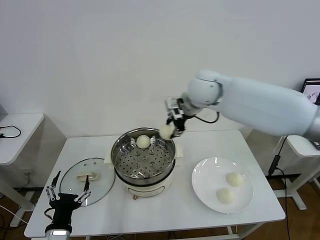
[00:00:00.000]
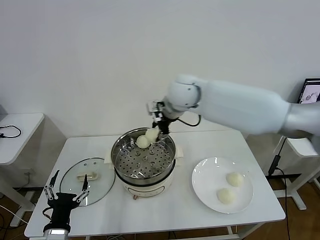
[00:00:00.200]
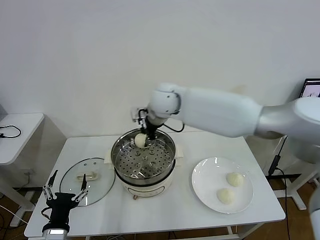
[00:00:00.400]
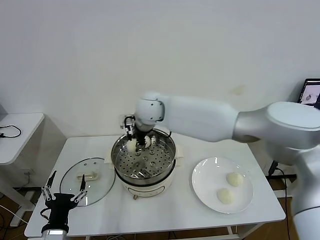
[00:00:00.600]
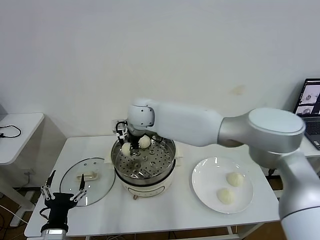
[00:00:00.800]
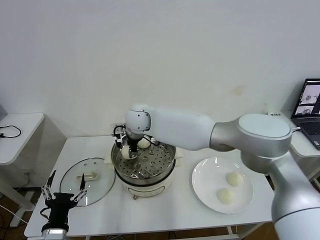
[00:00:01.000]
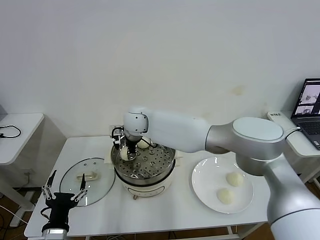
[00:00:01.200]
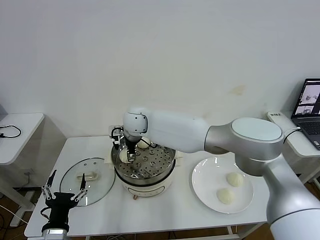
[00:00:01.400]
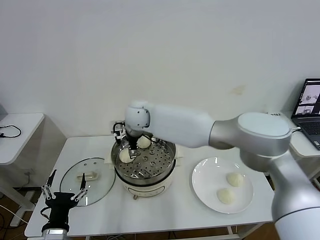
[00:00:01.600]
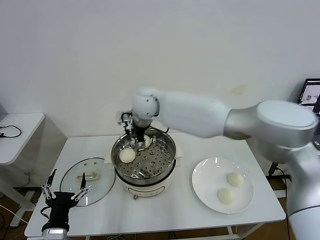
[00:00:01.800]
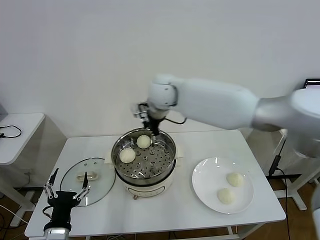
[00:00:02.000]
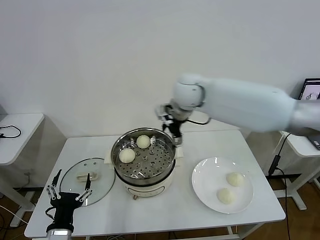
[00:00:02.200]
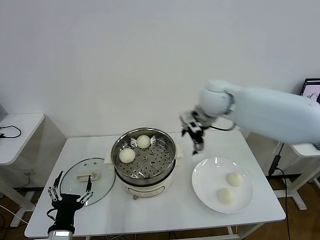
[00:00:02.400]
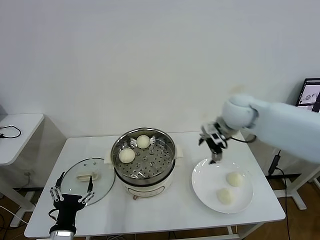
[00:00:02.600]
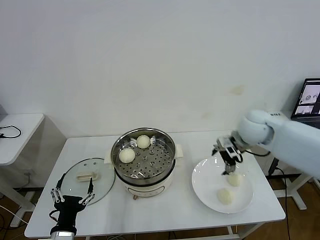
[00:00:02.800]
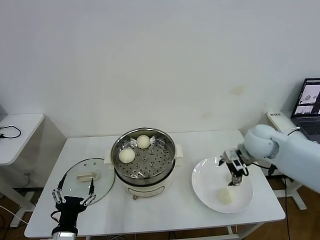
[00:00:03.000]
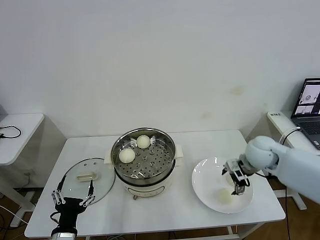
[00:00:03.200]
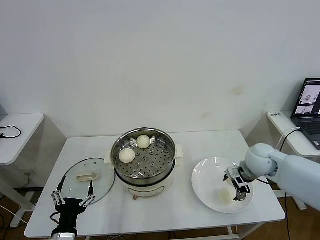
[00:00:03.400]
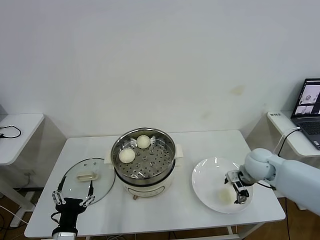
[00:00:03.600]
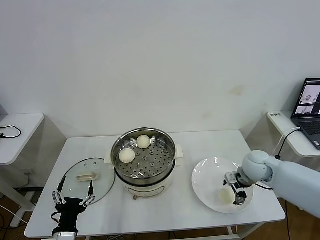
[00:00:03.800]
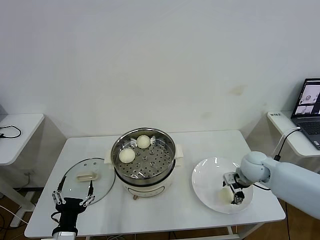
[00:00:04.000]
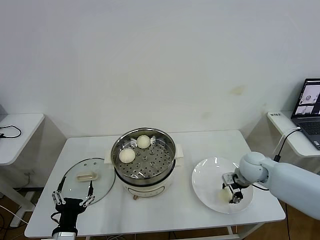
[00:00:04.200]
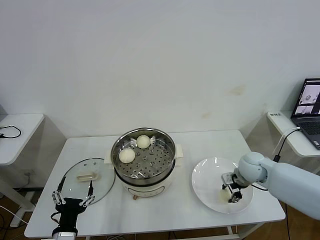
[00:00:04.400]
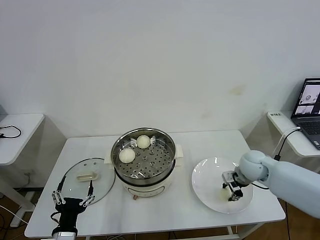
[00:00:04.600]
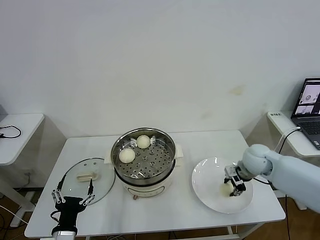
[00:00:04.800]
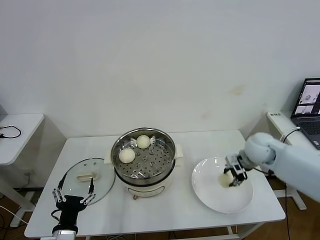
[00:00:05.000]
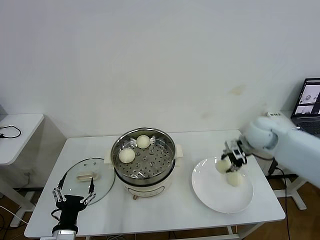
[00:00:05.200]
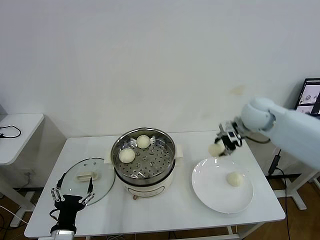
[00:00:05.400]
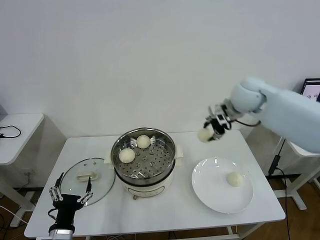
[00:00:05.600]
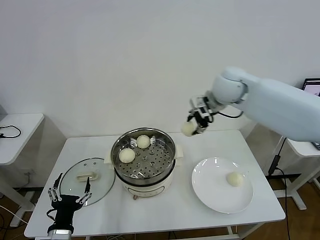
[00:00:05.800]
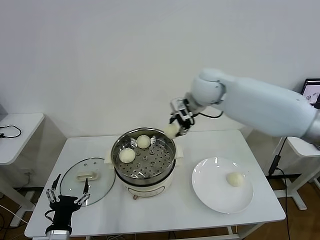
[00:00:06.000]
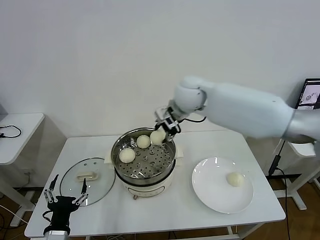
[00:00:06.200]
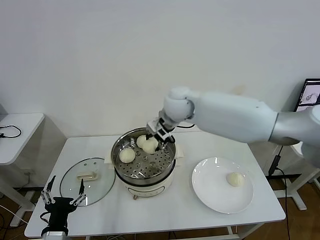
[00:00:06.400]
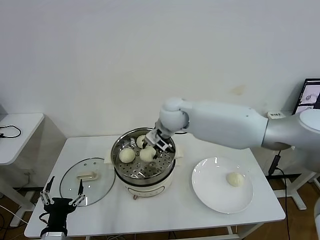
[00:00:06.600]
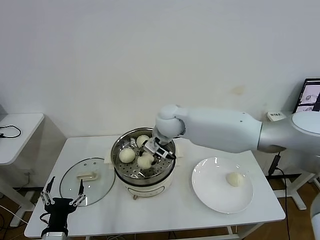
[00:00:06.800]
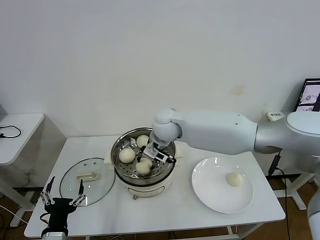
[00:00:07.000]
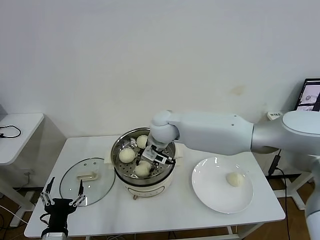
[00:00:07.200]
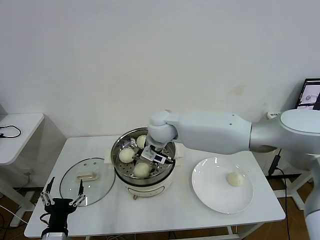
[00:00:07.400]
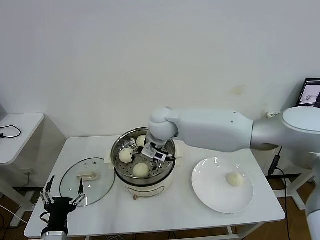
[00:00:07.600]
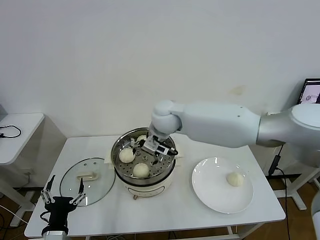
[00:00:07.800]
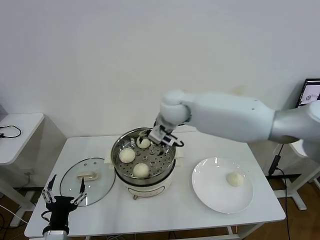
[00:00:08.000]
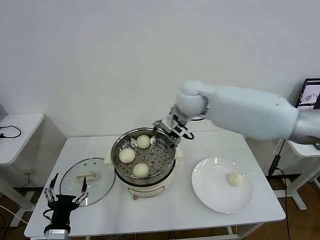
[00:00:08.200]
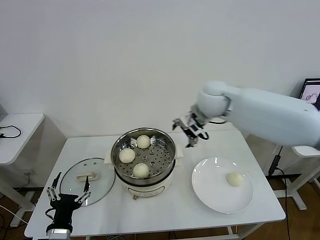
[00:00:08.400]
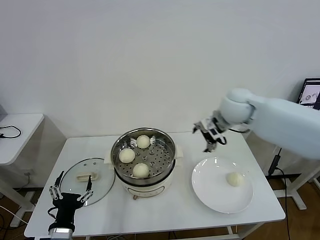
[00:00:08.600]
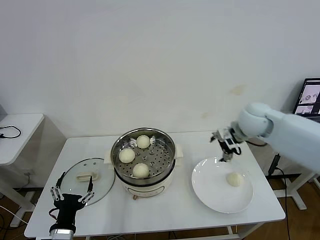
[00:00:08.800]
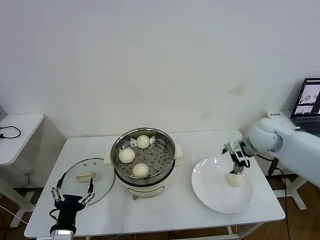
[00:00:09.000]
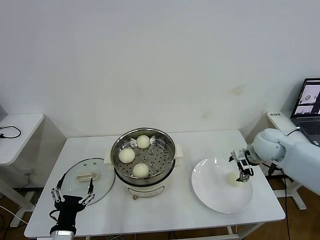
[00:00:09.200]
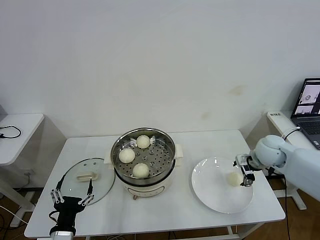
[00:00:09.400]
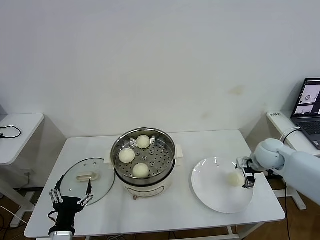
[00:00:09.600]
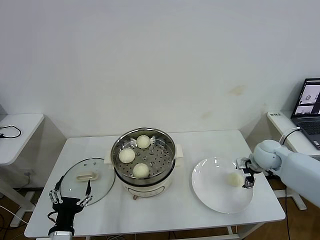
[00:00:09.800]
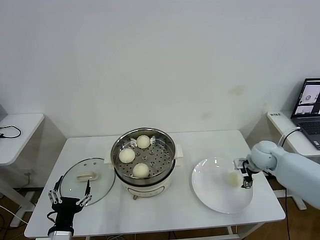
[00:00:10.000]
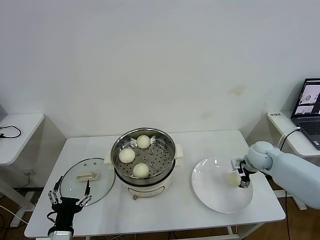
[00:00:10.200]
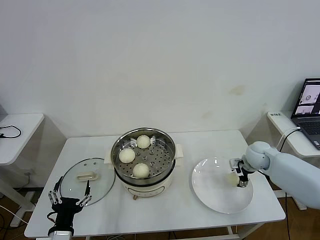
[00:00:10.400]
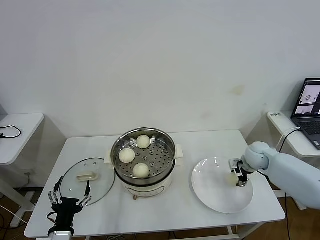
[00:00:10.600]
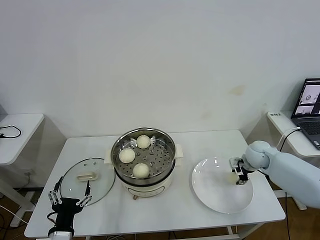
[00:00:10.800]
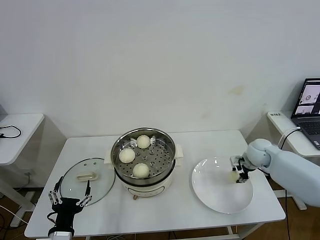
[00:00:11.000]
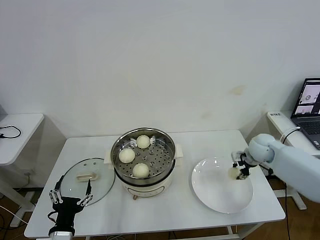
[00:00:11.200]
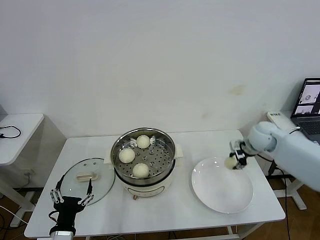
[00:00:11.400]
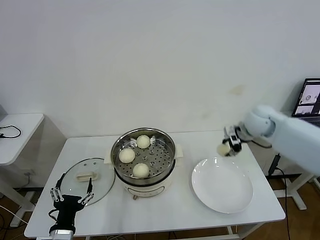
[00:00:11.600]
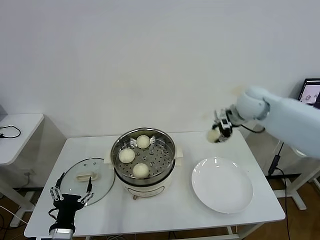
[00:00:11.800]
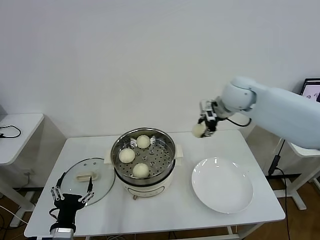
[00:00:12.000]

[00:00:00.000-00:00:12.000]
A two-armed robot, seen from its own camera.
Task of the whole recording: take steamed baozi put them in steamer then cover it.
Step, 00:00:00.000 to 00:00:01.400: Place the baozi on the steamer with right gripper.
Step, 00:00:01.600 to 00:00:04.400: Grasp the baozi in the plate with right gripper.
Step, 00:00:04.600 to 00:00:07.400: Place the baozi on the steamer with right gripper.
Step, 00:00:07.600 to 00:00:10.600: Grasp the baozi in the plate with right gripper.
00:00:00.000 to 00:00:01.600: The right gripper heads to the left and downward, covering approximately 20 cm, and opens its fingers.
00:00:01.600 to 00:00:03.000: The right gripper heads to the right, covering roughly 40 cm.
00:00:03.000 to 00:00:04.400: The right gripper shifts approximately 10 cm downward, and closes up.
00:00:04.400 to 00:00:06.000: The right gripper heads upward, to the left and forward, covering some 35 cm.
00:00:06.000 to 00:00:07.600: The right gripper heads to the left and downward, covering roughly 15 cm, and opens up.
00:00:07.600 to 00:00:09.000: The right gripper heads to the right, covering roughly 30 cm.
00:00:09.000 to 00:00:10.400: The right gripper goes roughly 15 cm downward.
00:00:10.400 to 00:00:12.000: The right gripper heads upward and to the left, covering approximately 25 cm, and closes its fingers.

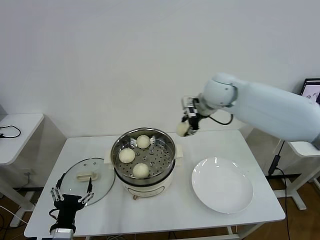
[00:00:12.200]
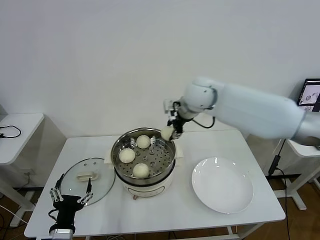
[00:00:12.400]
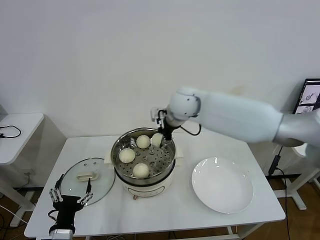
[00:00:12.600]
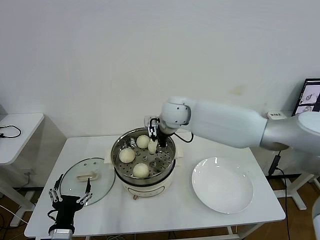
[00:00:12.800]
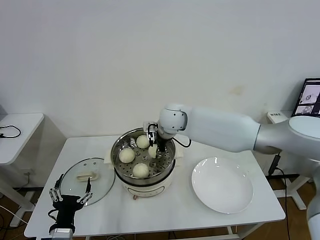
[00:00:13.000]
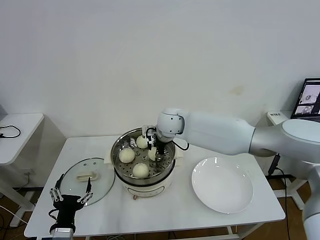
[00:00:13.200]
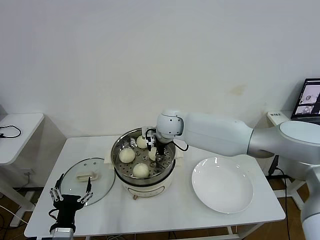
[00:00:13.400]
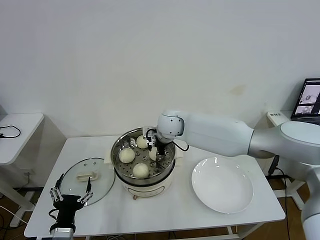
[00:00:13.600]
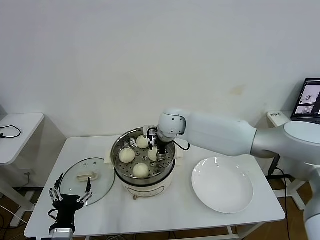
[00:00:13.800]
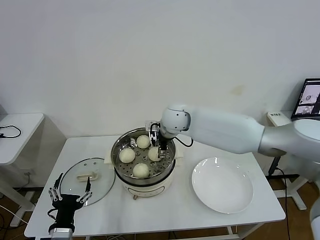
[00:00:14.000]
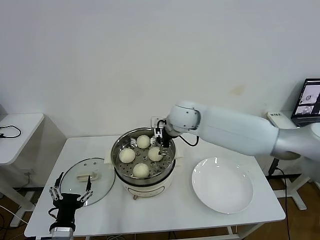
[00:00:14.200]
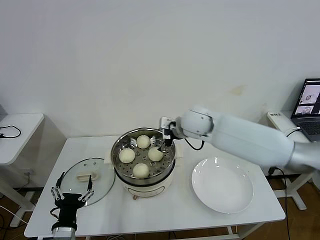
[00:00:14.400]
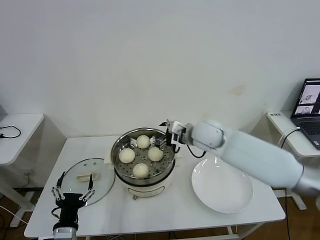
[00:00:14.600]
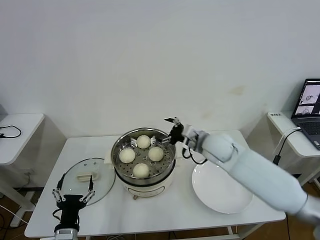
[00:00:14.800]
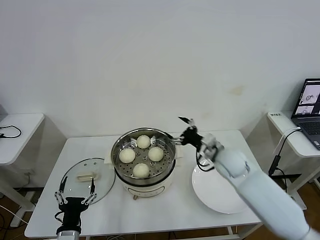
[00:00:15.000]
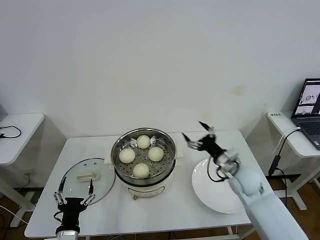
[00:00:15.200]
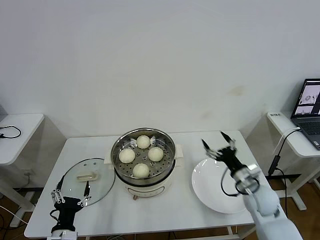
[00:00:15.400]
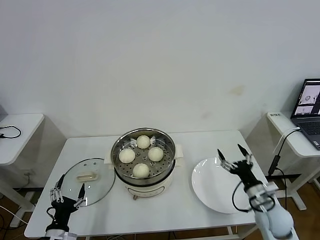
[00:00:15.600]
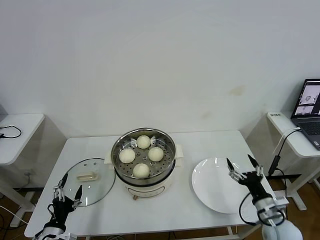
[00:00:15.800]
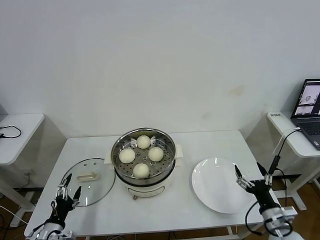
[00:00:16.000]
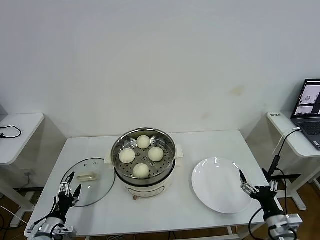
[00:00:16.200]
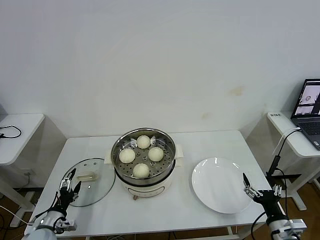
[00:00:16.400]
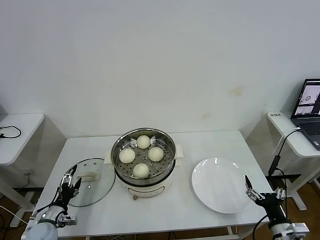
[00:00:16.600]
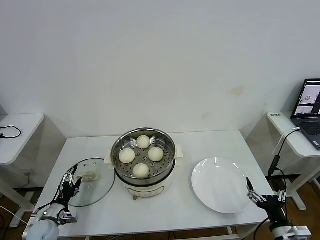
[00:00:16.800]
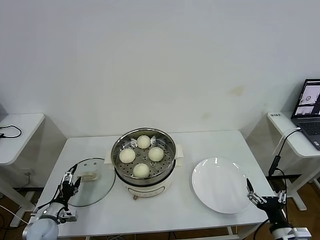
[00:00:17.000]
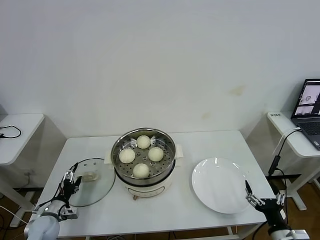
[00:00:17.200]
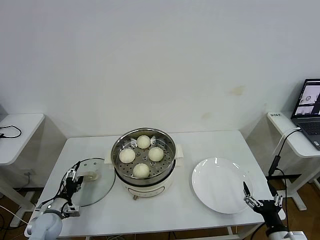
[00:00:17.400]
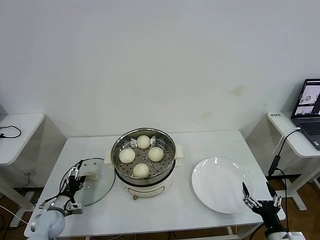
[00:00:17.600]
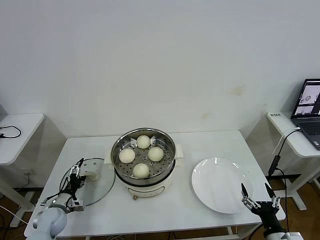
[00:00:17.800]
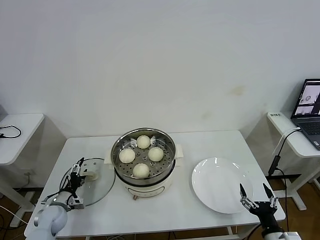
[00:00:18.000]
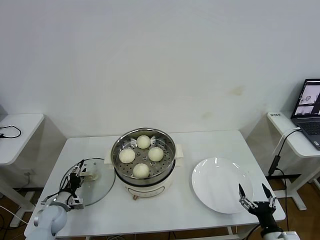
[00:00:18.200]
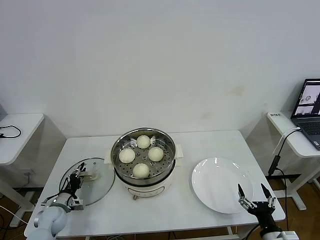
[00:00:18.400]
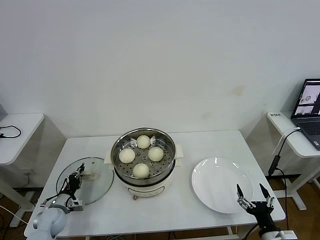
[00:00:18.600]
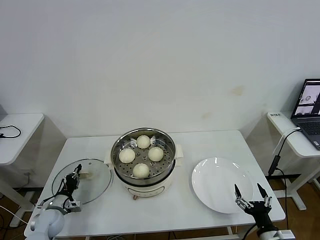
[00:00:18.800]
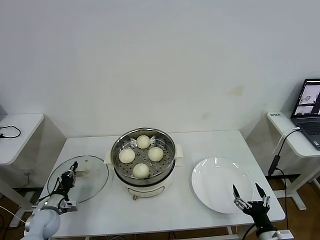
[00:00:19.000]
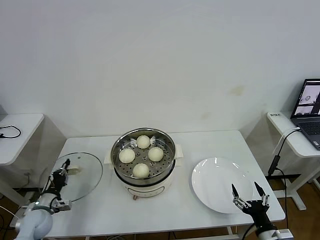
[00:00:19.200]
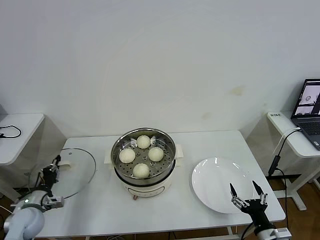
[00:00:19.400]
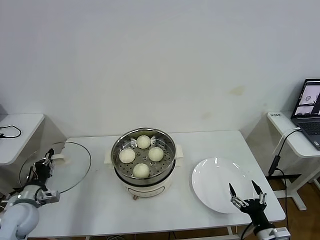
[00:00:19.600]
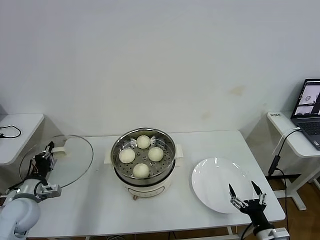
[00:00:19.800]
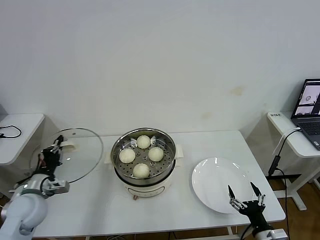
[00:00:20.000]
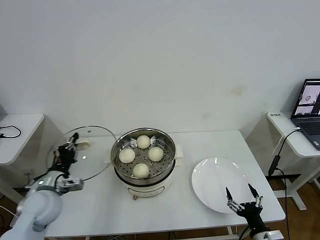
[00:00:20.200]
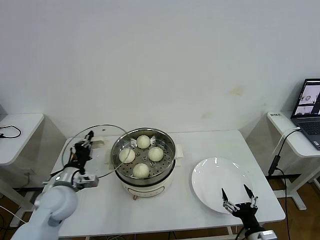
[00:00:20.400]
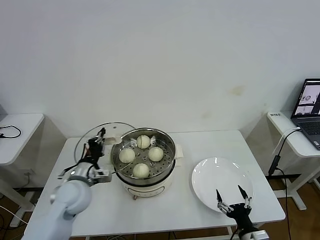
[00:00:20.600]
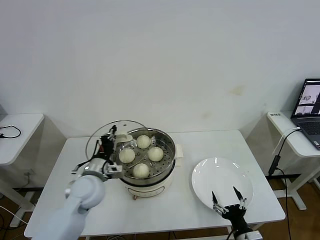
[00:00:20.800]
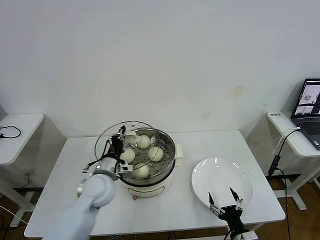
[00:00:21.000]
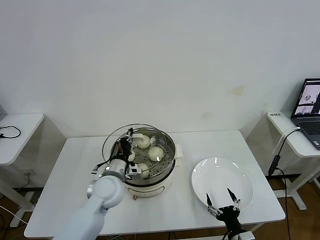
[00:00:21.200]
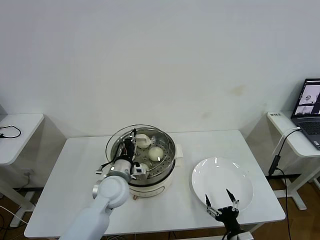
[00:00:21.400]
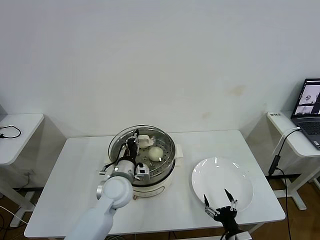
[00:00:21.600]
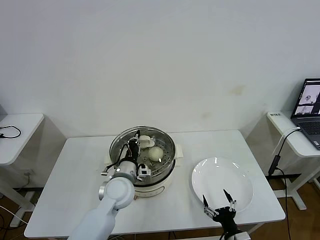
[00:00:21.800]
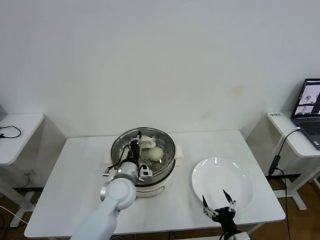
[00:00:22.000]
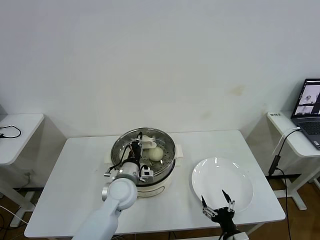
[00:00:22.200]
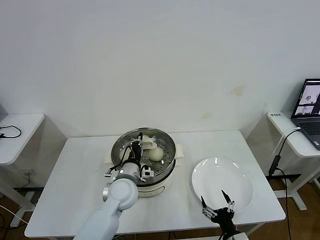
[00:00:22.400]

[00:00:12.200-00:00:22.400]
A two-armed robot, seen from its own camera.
Task of the whole recording: take steamed baozi put them in steamer then cover it.
Step, 00:00:12.200 to 00:00:13.800: Place the baozi on the steamer with right gripper.
Step, 00:00:14.000 to 00:00:18.600: Grasp the pot lid with left gripper.
00:00:12.200 to 00:00:13.600: The right gripper is displaced to the left and downward by about 20 cm.
00:00:13.600 to 00:00:15.200: The right gripper heads to the right, backward and downward, covering some 30 cm, and opens its fingers.
00:00:15.200 to 00:00:16.600: The right gripper is displaced backward and to the right by approximately 25 cm. The left gripper shifts approximately 20 cm to the left, forward and downward.
00:00:16.600 to 00:00:18.000: The left gripper travels forward by about 5 cm.
00:00:18.000 to 00:00:19.400: The left gripper shifts some 5 cm upward, and closes its fingers.
00:00:19.400 to 00:00:21.000: The left gripper is displaced to the right and upward by roughly 25 cm, while the right gripper shifts roughly 5 cm to the left.
00:00:21.000 to 00:00:22.400: The left gripper travels to the right by about 10 cm.
